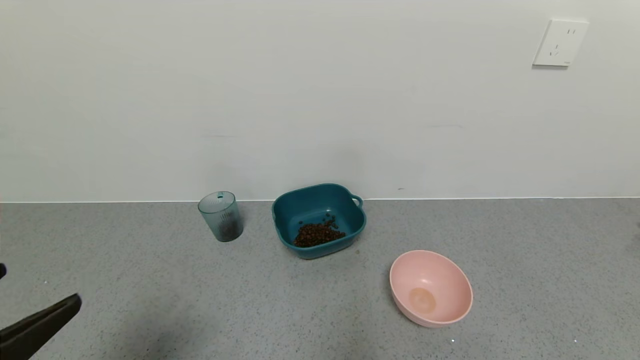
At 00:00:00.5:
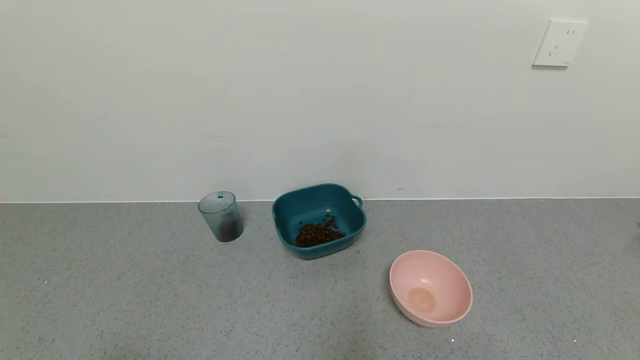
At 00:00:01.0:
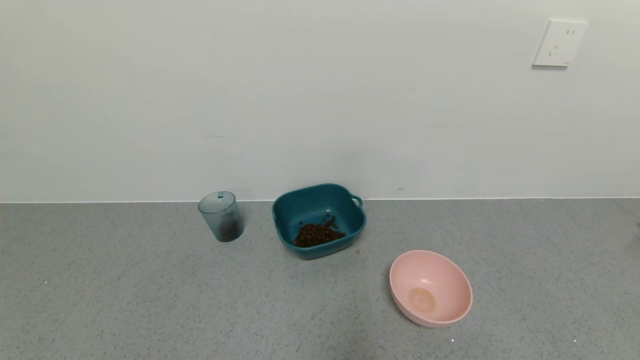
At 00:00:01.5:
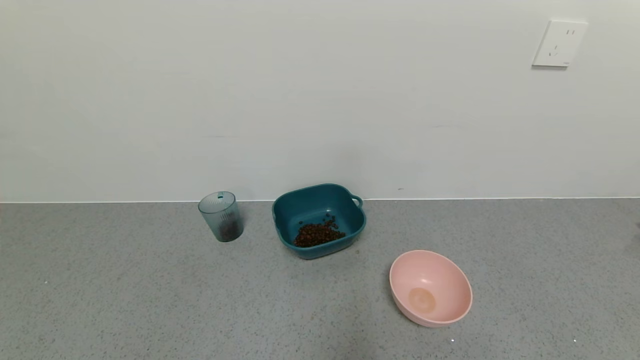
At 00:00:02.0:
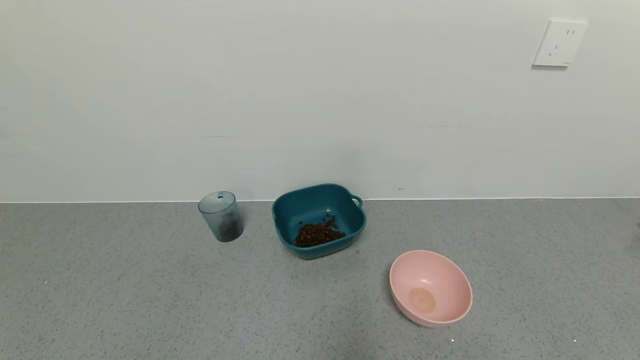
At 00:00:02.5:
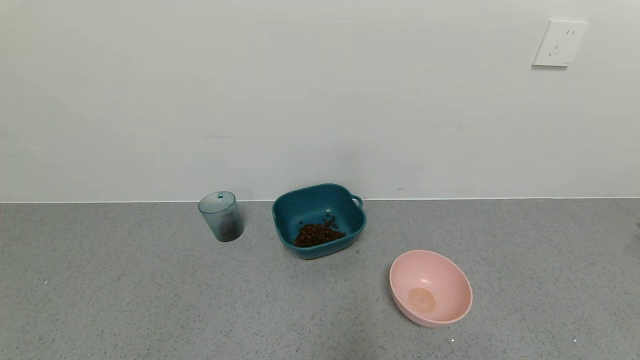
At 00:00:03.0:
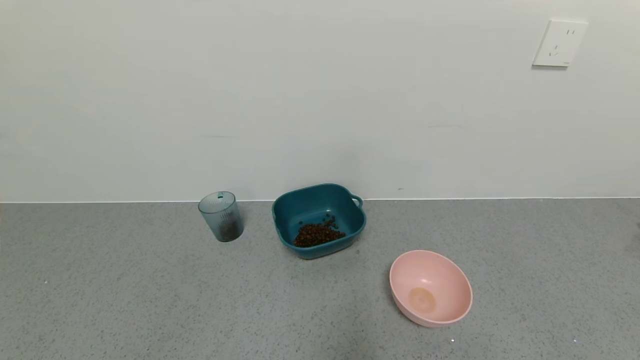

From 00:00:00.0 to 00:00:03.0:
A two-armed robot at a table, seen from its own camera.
Task of the whole recording: use a gripper to pick up the cup and pour the solid into a bowl or tray.
From 00:00:00.0 to 00:00:01.5: The left gripper shifts roughly 15 cm backward and downward.
